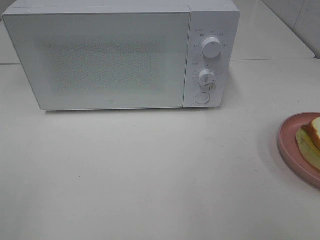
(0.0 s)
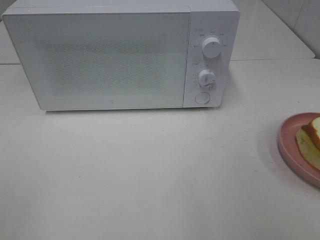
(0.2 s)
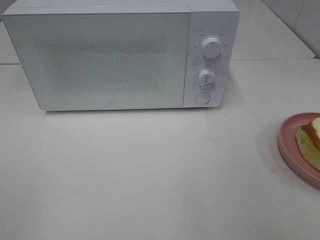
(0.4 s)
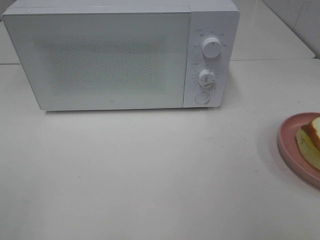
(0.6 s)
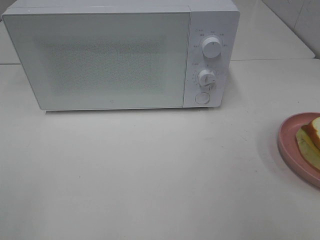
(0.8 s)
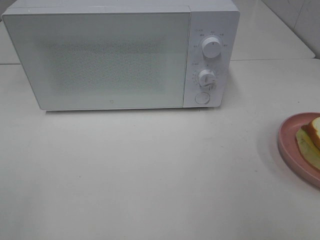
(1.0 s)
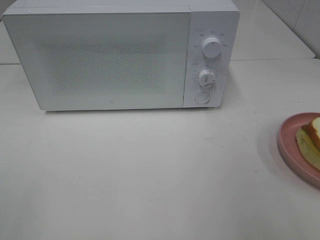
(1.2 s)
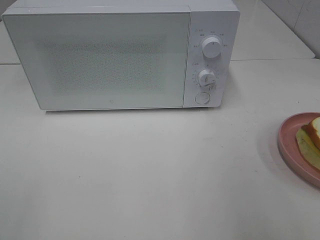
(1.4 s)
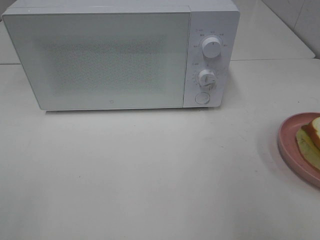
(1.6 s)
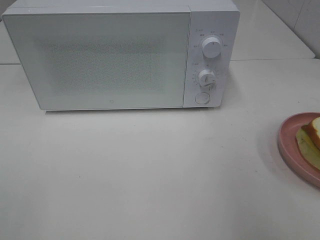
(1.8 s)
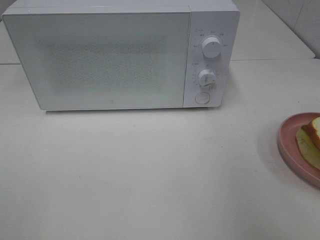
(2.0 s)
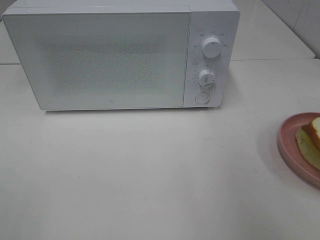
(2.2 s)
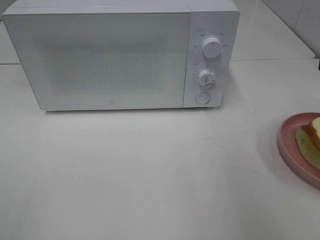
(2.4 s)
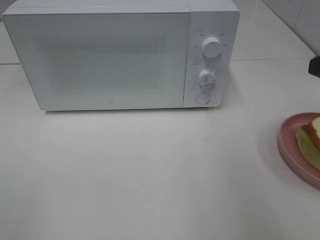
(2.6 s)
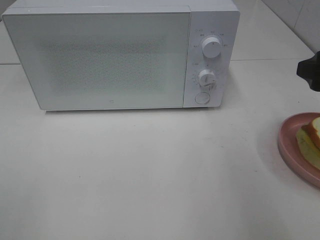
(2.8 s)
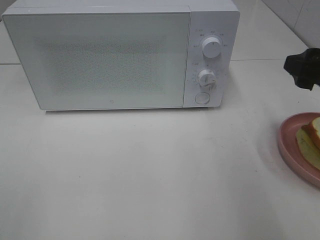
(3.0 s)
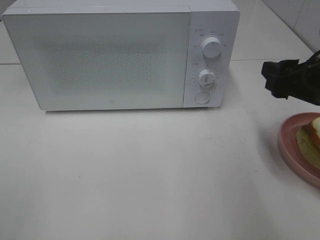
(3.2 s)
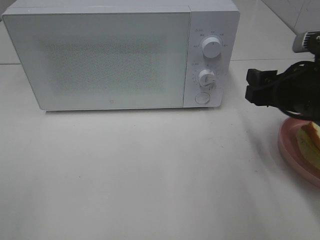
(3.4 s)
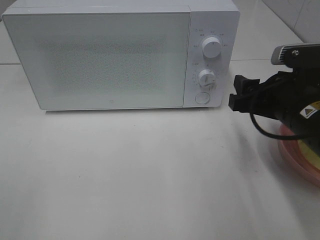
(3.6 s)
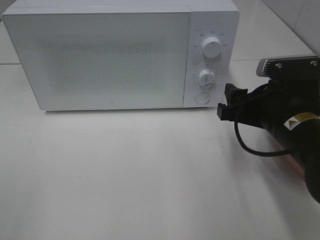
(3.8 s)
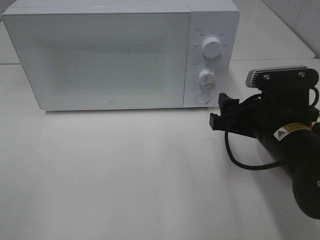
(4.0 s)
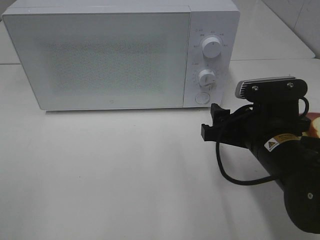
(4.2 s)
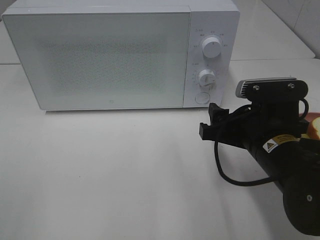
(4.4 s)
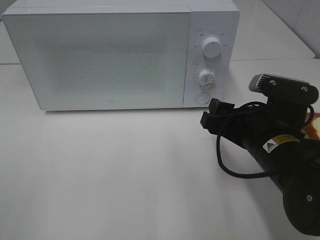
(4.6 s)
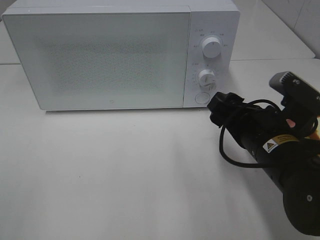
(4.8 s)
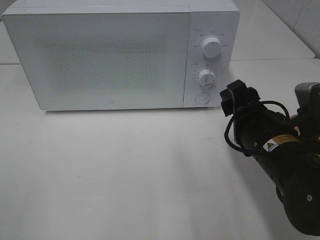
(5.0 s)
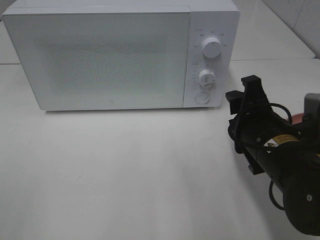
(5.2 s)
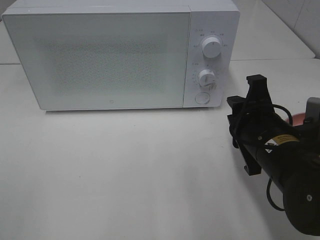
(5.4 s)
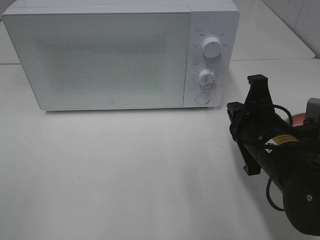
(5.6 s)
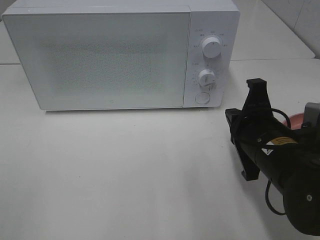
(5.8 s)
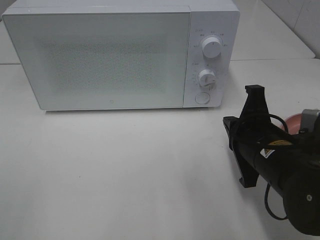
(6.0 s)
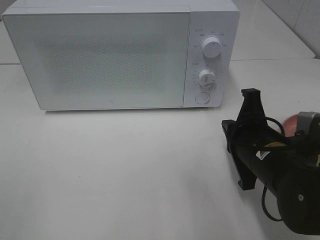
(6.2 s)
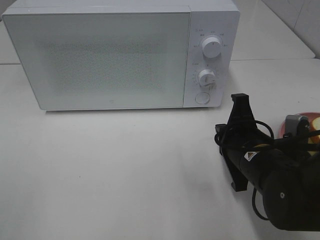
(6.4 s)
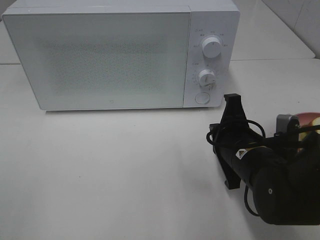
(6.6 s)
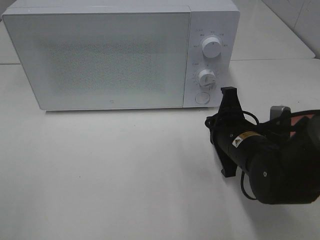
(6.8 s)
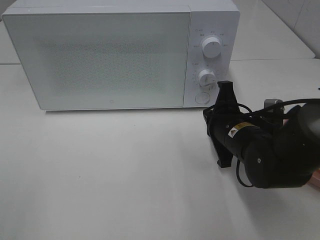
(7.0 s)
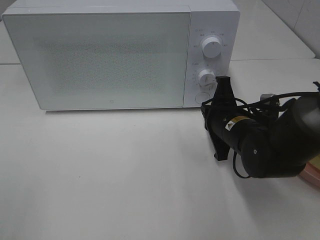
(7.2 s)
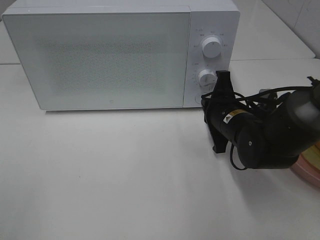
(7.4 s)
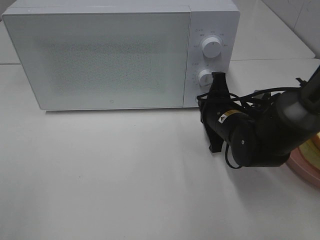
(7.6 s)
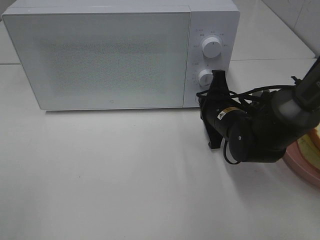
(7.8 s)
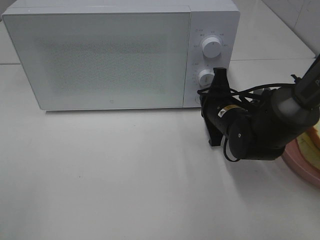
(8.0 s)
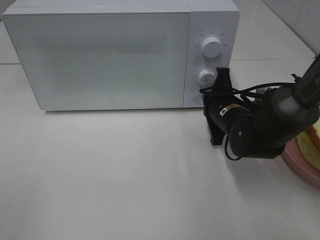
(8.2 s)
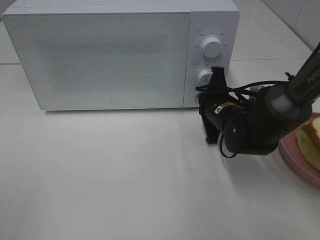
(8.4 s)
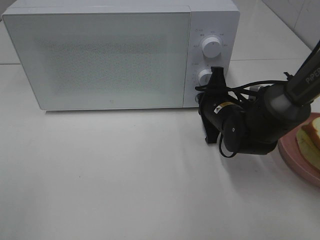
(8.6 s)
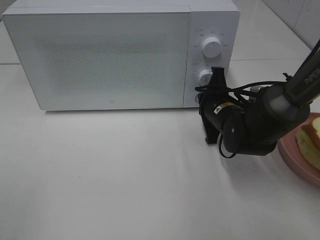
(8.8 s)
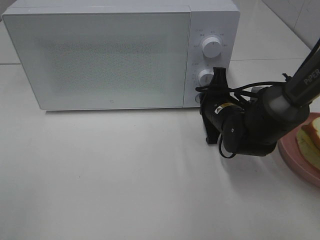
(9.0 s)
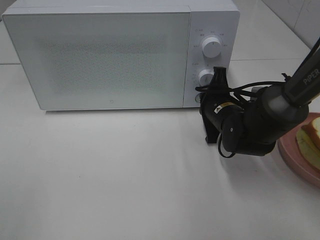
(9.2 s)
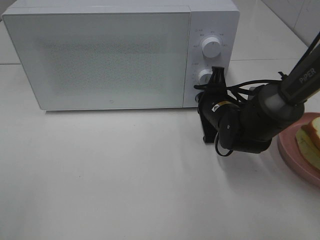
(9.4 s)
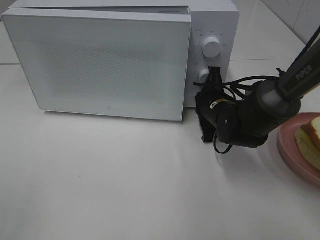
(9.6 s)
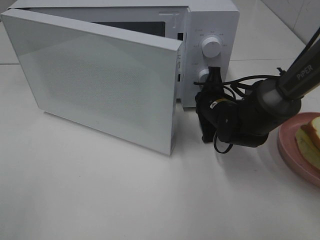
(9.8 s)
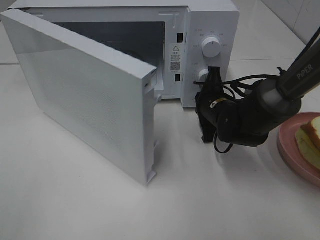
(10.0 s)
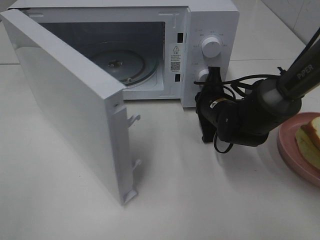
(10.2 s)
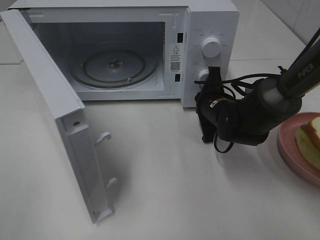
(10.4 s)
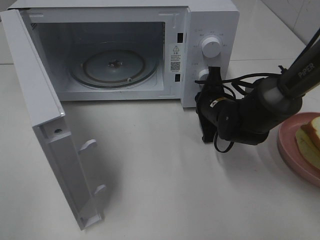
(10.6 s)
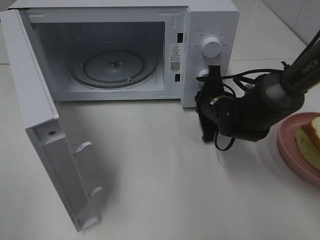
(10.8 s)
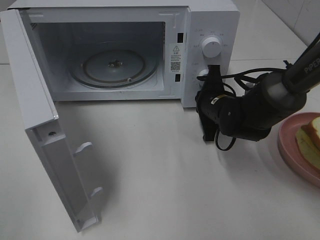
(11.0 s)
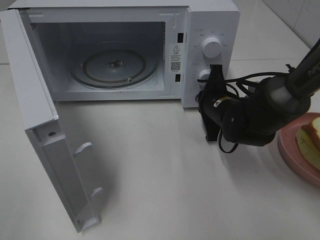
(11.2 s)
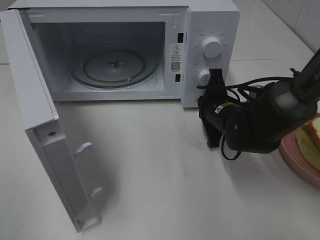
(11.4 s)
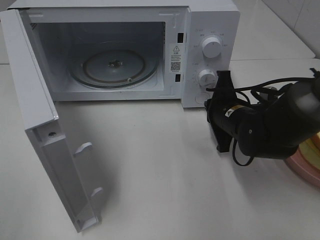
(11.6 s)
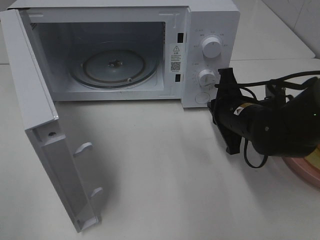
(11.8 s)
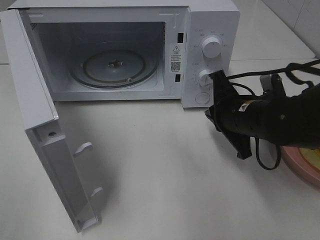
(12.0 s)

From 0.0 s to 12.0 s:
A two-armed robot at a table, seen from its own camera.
Task of the whole recording: Heat Sandwich.
Step, from 0.0 s to 11.8 s: Right hand: press the switch.
From 1.6 s to 3.0 s: The right gripper shifts approximately 10 cm forward and downward.
From 3.0 s to 4.4 s: The right gripper travels to the left and downward by about 15 cm.
From 4.4 s to 6.0 s: The right gripper closes.
From 6.0 s to 7.6 s: The right gripper moves forward, roughly 10 cm.
From 7.6 s to 9.0 s: The grippers make only small movements.
From 10.4 s to 12.0 s: The right gripper heads backward and upward, covering approximately 10 cm.

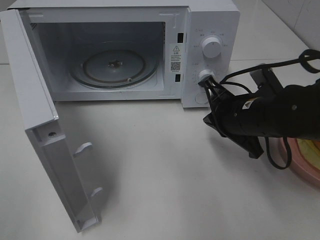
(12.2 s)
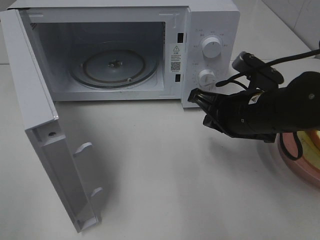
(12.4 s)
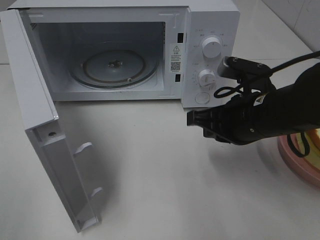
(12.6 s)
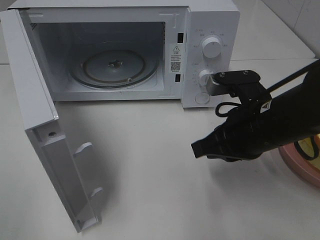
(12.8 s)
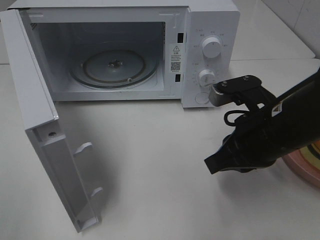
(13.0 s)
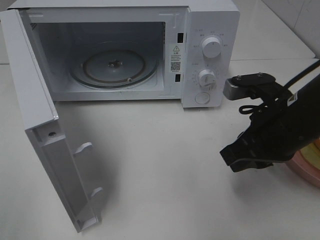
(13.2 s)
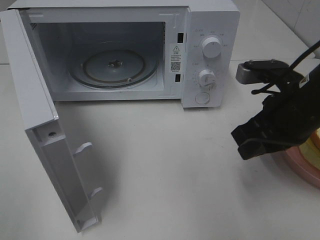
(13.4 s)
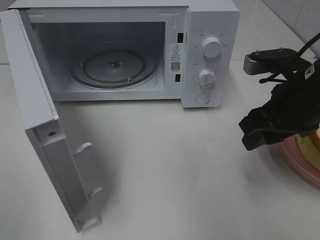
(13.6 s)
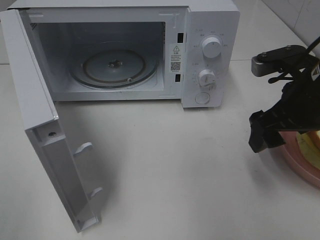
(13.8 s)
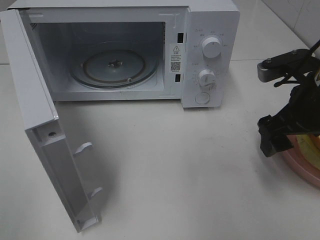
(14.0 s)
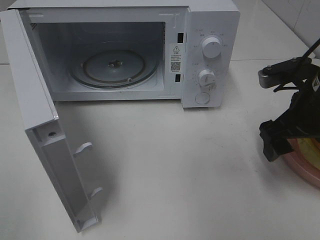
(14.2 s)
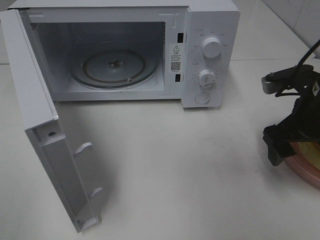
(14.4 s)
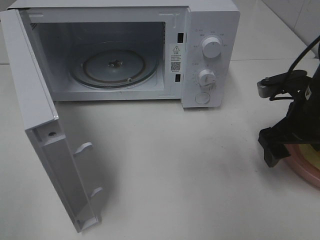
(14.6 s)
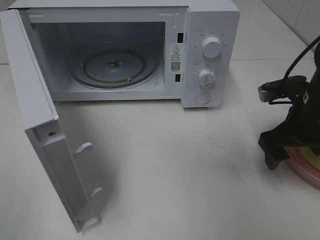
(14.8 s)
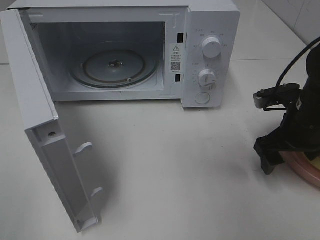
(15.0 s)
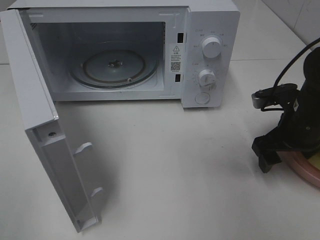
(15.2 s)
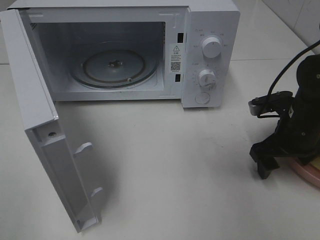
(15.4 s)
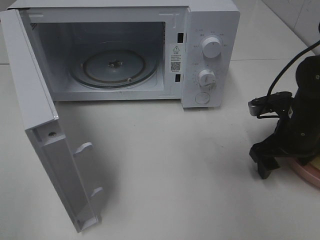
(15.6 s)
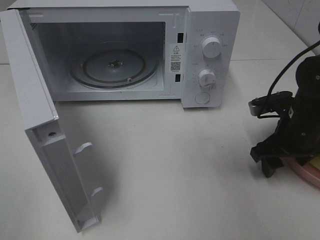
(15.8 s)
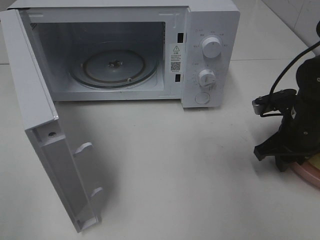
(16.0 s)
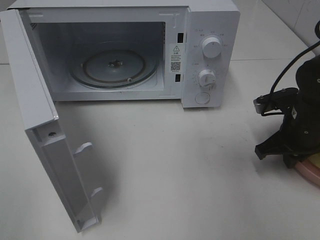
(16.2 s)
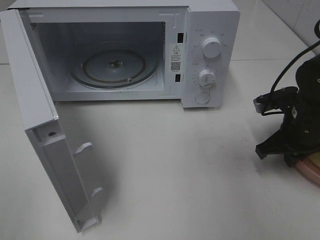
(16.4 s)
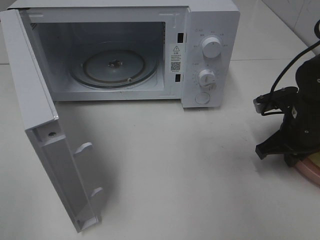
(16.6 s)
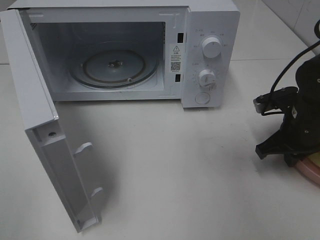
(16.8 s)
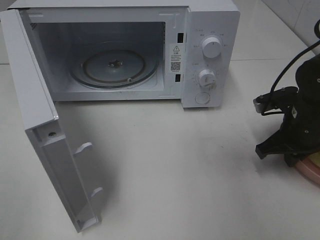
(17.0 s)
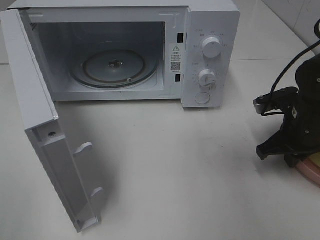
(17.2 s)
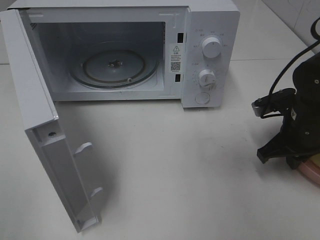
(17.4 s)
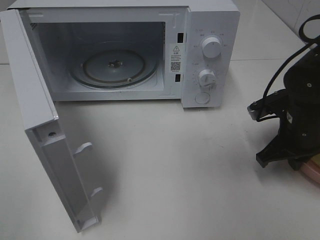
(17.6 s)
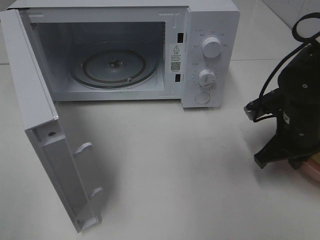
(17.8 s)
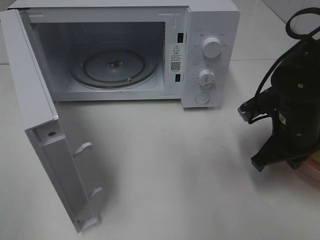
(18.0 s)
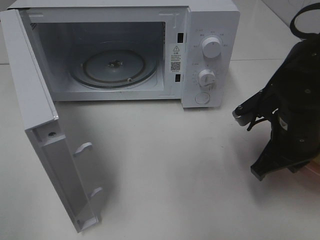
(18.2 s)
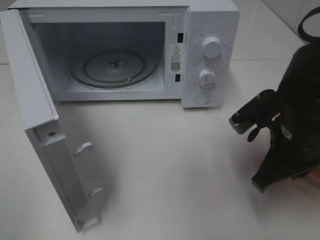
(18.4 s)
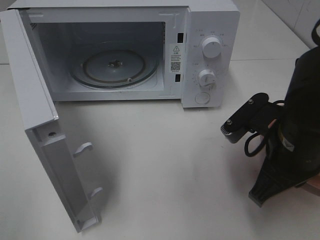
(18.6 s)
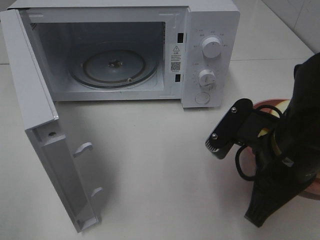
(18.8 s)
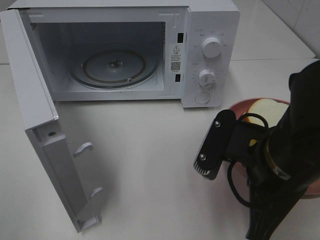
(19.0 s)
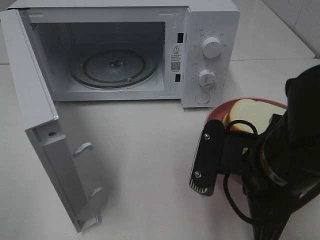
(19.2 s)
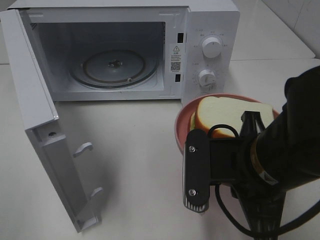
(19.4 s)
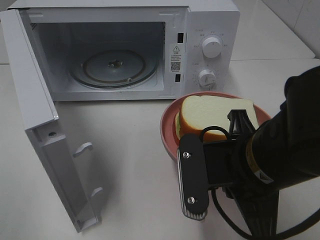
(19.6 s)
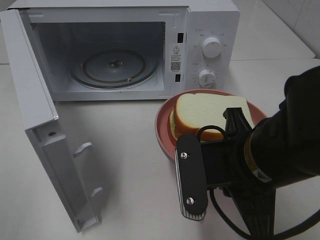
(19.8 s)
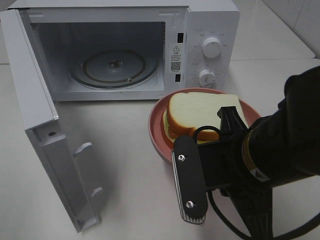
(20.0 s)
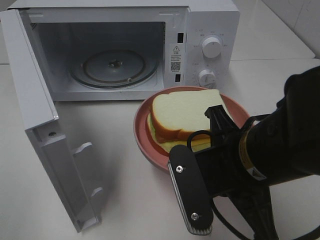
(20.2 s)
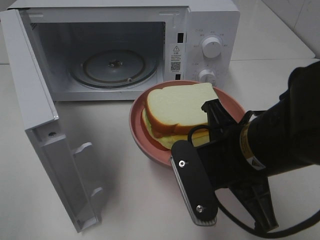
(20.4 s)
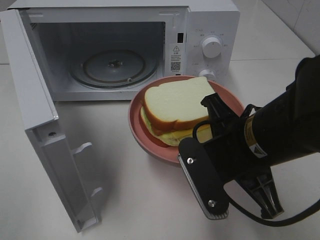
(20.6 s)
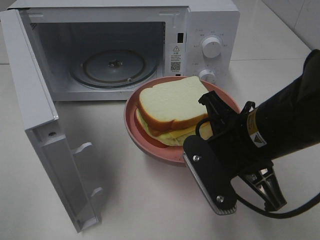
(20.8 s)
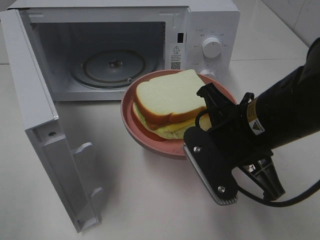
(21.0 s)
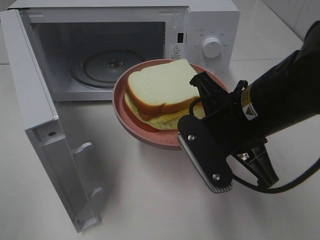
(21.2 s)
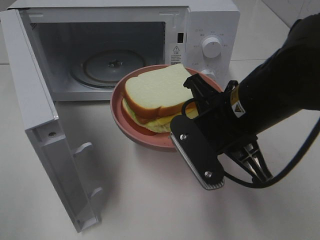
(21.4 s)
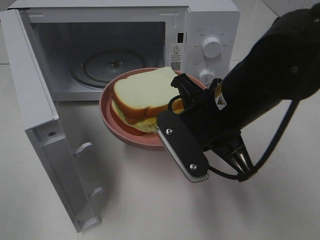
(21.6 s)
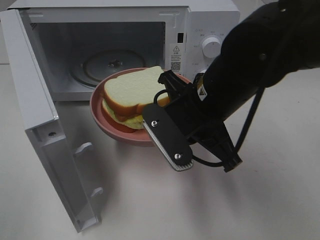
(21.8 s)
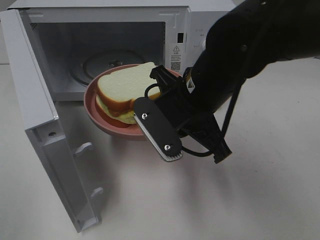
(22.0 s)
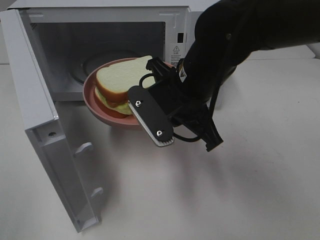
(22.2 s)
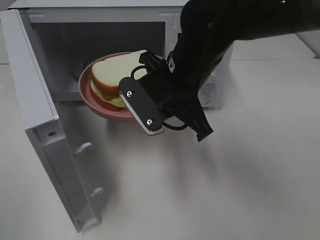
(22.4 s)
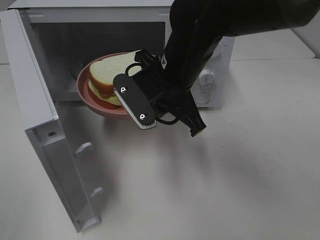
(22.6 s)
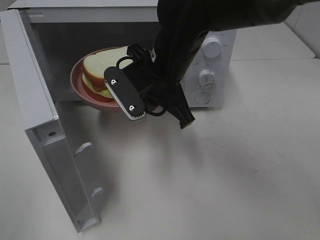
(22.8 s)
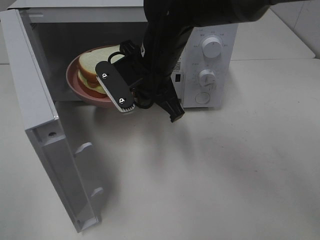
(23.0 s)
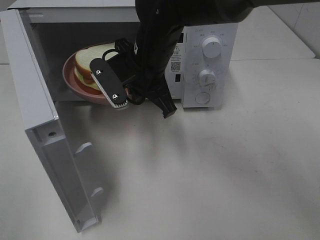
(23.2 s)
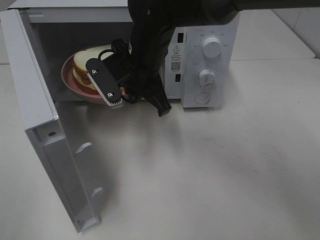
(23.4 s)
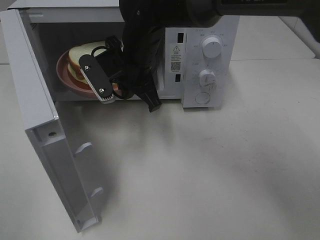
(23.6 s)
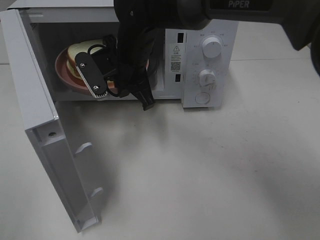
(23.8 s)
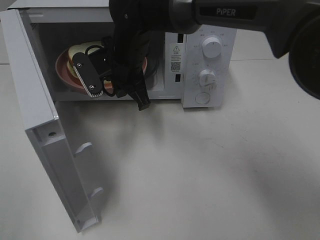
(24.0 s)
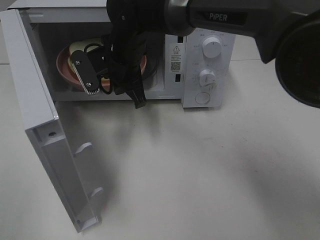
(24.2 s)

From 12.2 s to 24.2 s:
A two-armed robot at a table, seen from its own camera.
Task of the whole recording: Heat Sandwich.
Step, from 12.2 s to 16.4 s: Right hand: grab the plate with the sandwich.
From 12.2 s to 13.8 s: The right gripper is displaced upward and to the right by some 10 cm, and opens up.
From 13.8 s to 15.2 s: The right gripper travels downward by approximately 10 cm.
From 15.2 s to 16.6 s: The right gripper closes up.
From 16.6 s to 18.2 s: The right gripper shifts about 10 cm to the left and backward.
From 18.2 s to 19.8 s: The right gripper is displaced to the left and backward by roughly 15 cm.
From 19.8 s to 21.2 s: The right gripper moves forward, roughly 5 cm.
From 21.2 s to 22.6 s: The right gripper moves forward and to the left, approximately 10 cm.
From 22.6 s to 24.2 s: The right gripper shifts about 15 cm forward and to the left.
